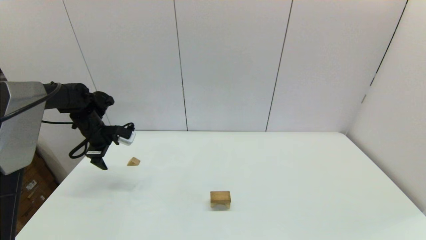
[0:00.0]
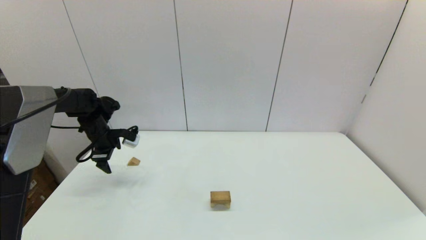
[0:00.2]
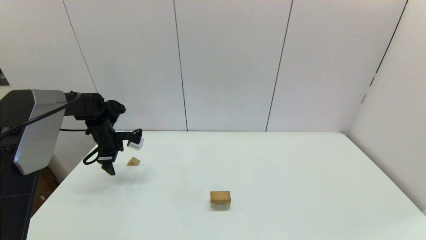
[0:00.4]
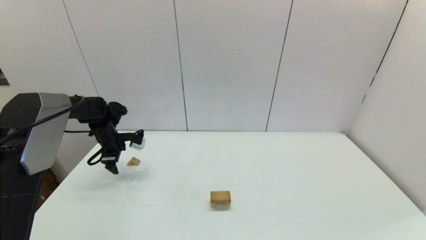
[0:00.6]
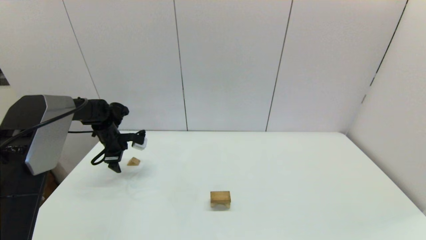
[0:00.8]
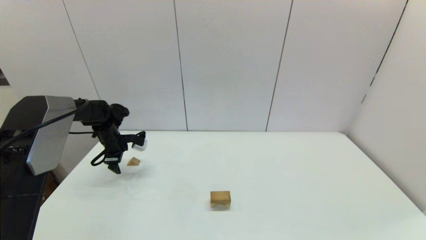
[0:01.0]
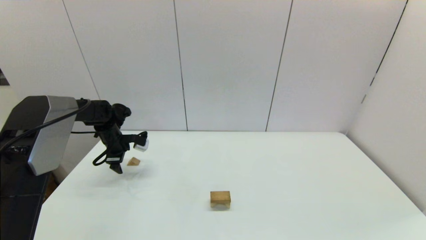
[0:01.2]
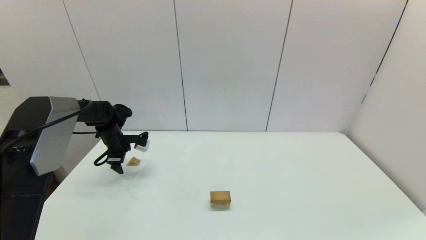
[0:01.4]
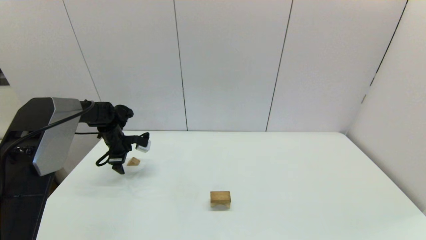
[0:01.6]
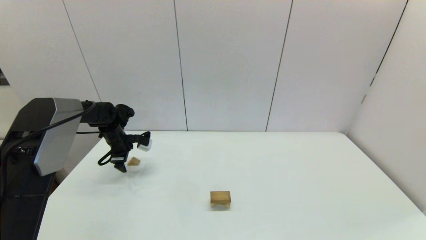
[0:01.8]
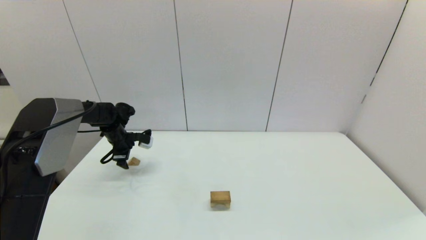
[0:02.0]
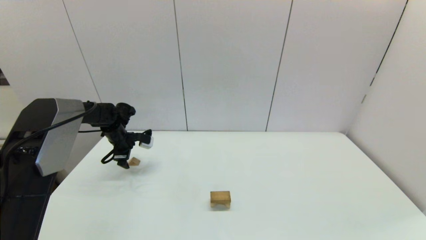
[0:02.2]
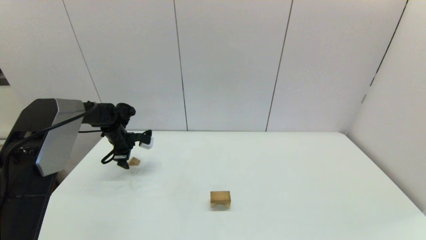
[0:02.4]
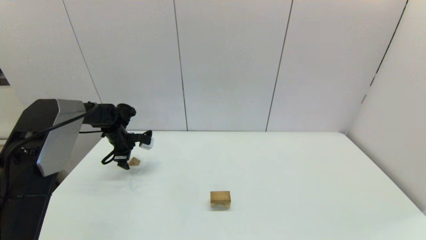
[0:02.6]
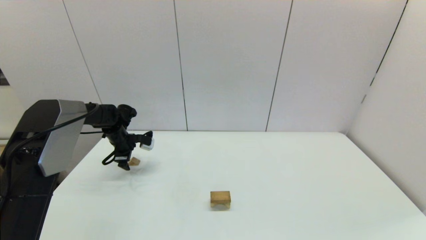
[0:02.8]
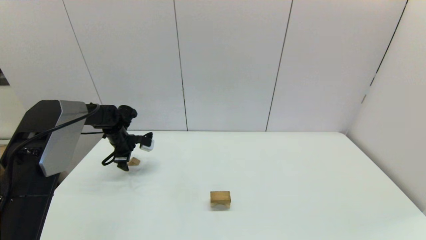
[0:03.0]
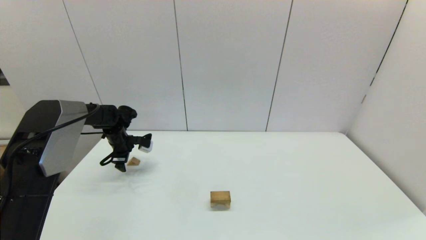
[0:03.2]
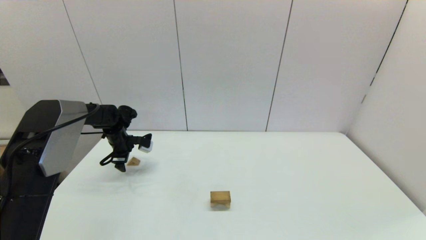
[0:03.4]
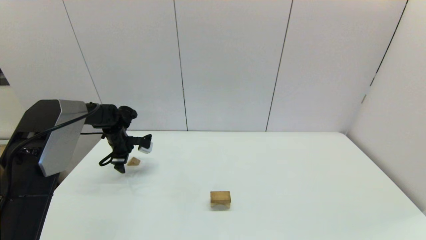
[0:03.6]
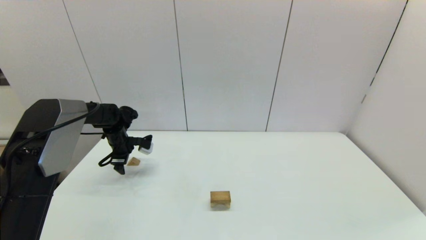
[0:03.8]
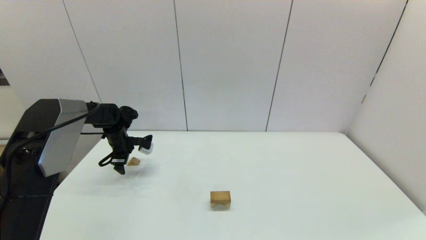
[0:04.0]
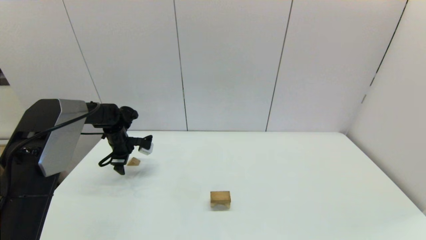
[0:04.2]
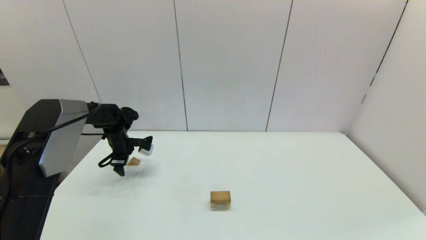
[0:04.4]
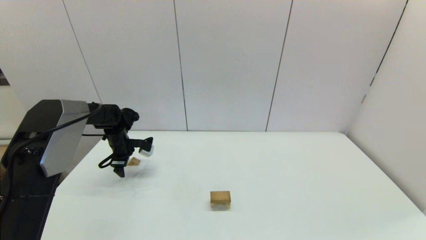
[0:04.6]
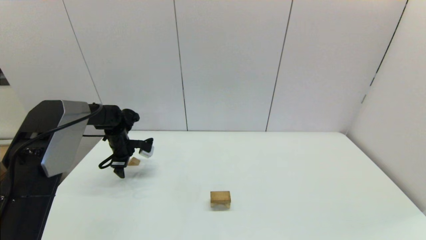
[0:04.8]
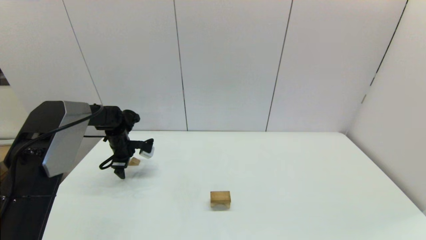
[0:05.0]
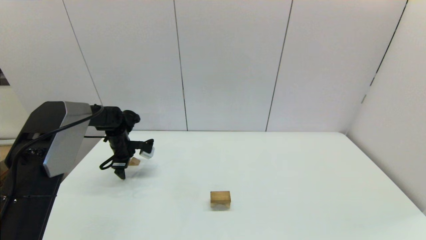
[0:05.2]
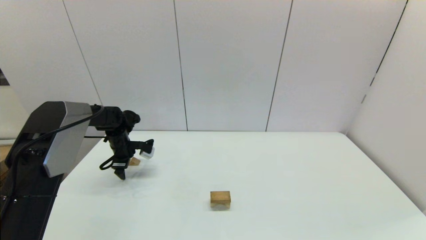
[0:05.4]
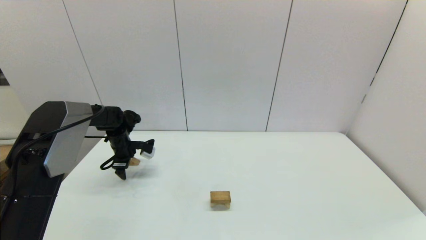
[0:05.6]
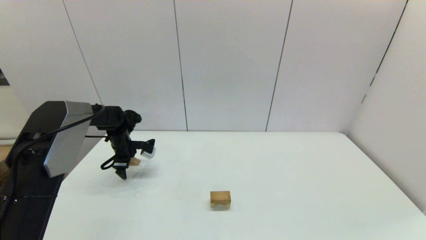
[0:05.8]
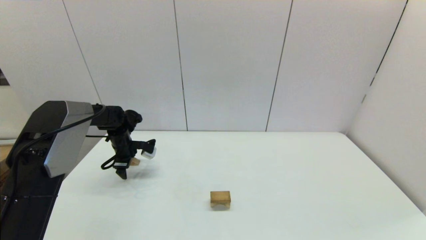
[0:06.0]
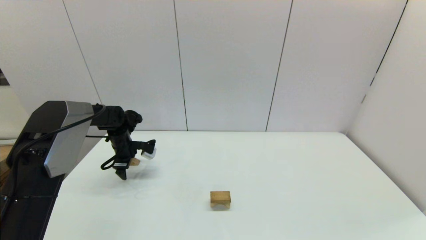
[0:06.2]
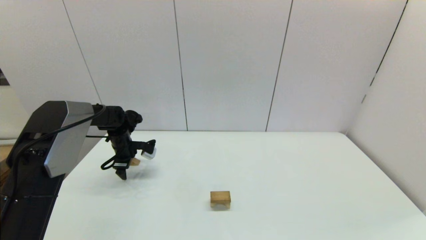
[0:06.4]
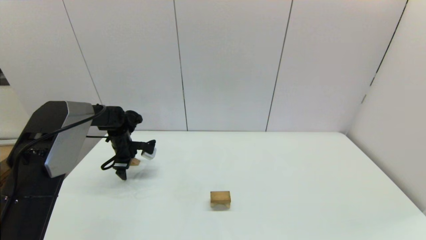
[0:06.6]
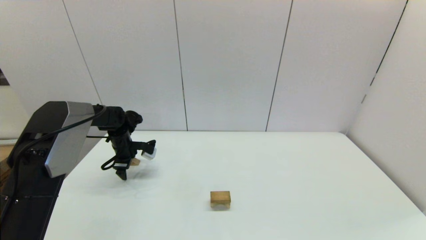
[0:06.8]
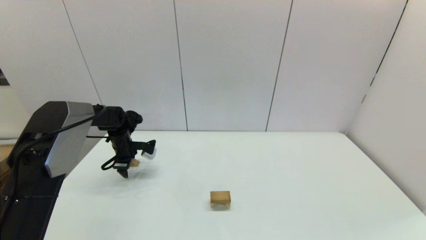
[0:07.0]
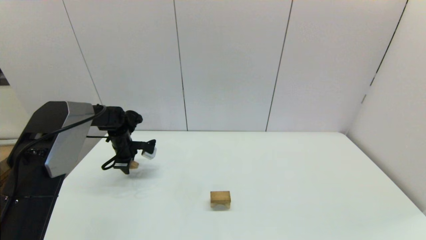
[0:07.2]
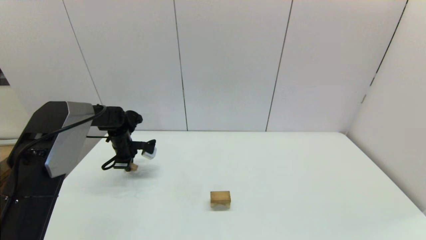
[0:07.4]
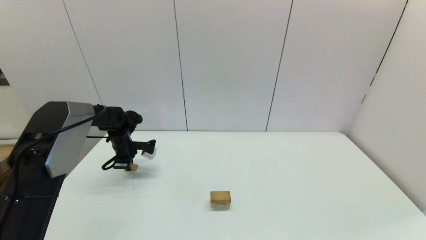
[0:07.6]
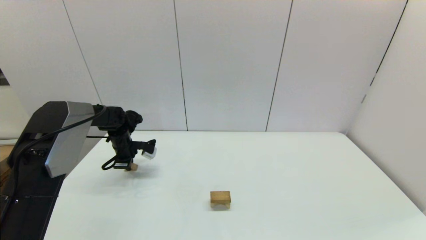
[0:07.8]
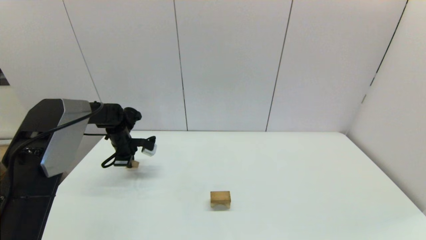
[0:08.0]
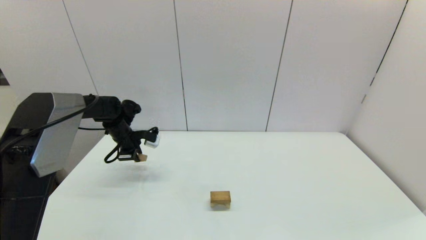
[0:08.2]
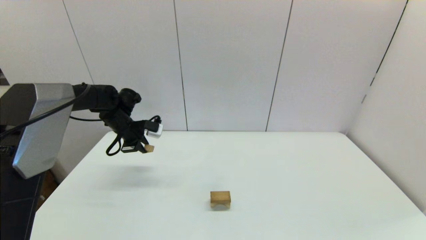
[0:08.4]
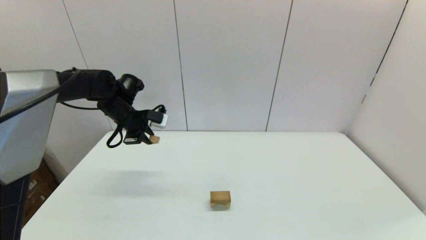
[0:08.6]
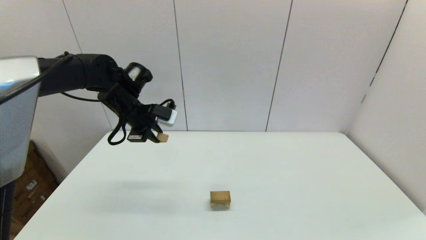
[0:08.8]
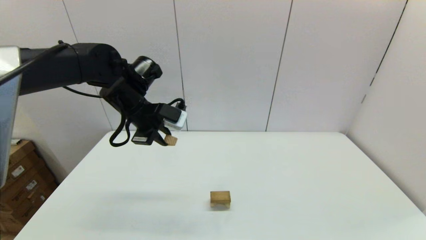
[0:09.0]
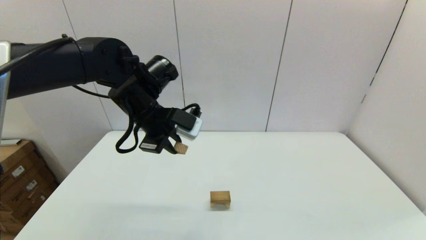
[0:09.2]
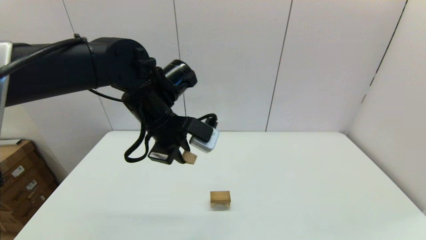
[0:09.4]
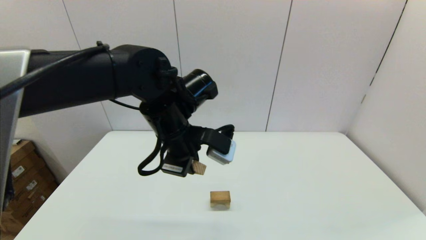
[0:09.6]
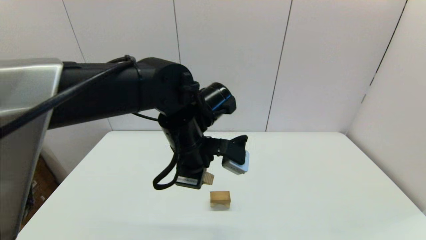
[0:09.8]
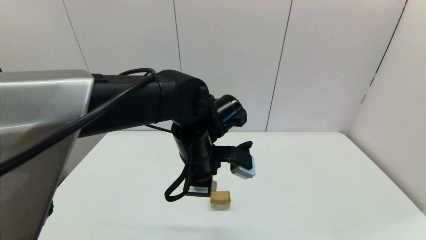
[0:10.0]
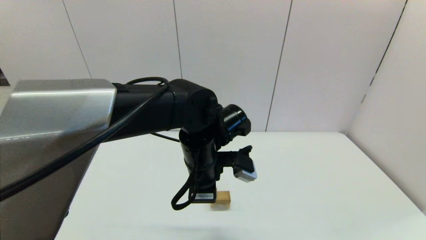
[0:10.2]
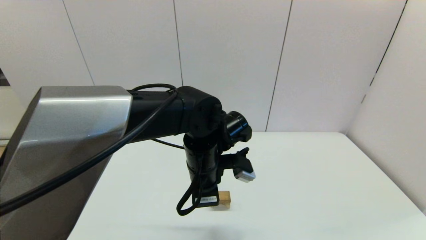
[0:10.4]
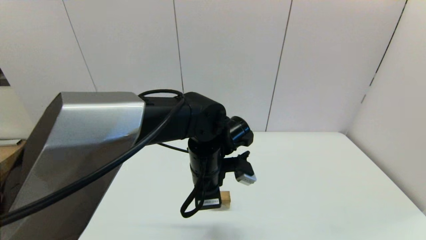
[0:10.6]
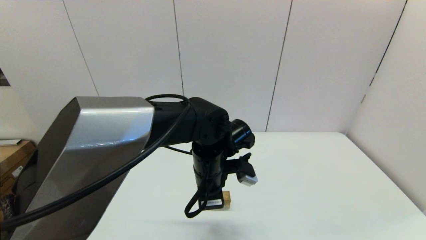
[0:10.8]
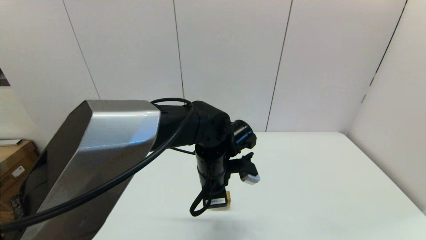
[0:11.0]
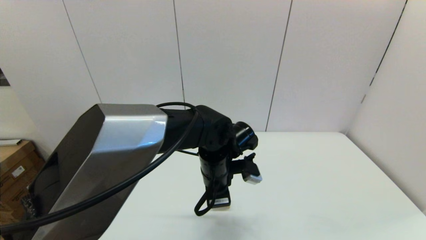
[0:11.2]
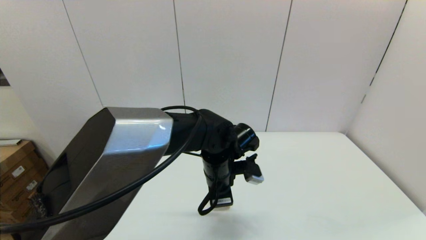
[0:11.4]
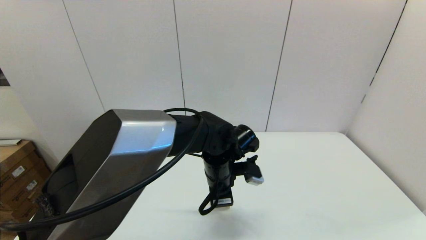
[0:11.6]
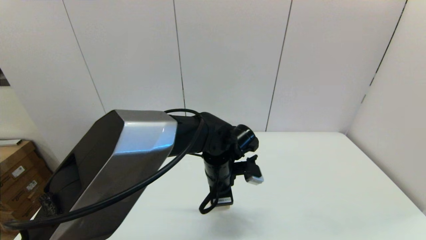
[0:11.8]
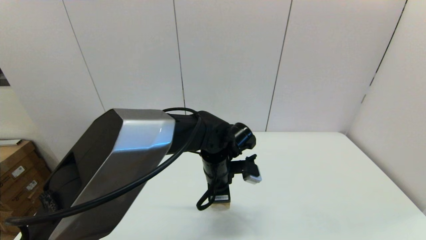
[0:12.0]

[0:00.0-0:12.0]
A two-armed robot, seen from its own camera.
Task of the whole recording: place the arched building blocks in the center of the table, set up the rectangular building blocks, and then set up the triangular building blocks.
Step, 0:00.0 to 0:07.4: Grasp the triangle-shaped block with the left gripper.
0:00.0 to 0:01.6: The left gripper is displaced downward by about 5 cm.
0:01.6 to 0:04.4: The grippers stay close to where they were, moving slightly.
0:04.4 to 0:06.0: Neither gripper changes place.
0:06.0 to 0:07.6: The left gripper closes its fingers.
0:07.6 to 0:09.0: The left gripper heads upward, to the right and backward, covering some 25 cm.
0:09.0 to 0:10.4: The left gripper heads to the right, backward and downward, covering some 20 cm.
0:10.4 to 0:12.0: The left gripper travels downward by approximately 5 cm.

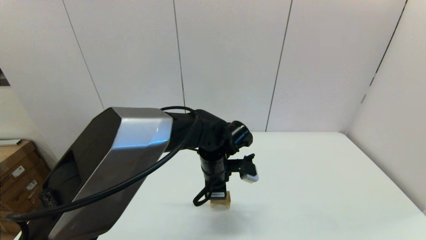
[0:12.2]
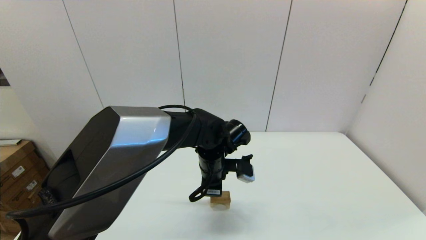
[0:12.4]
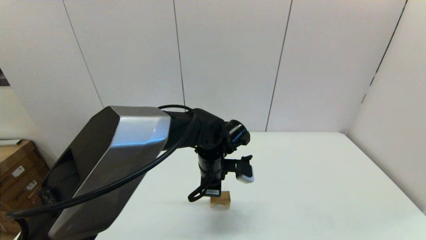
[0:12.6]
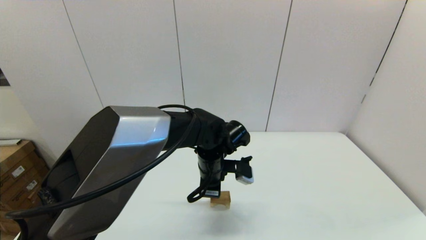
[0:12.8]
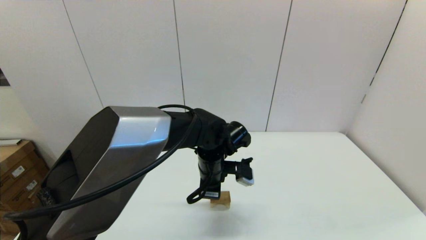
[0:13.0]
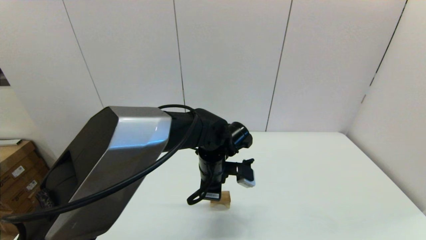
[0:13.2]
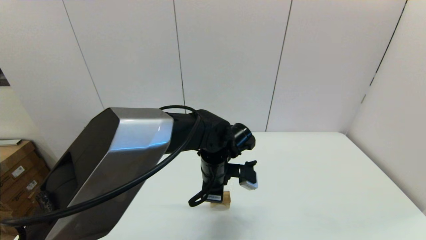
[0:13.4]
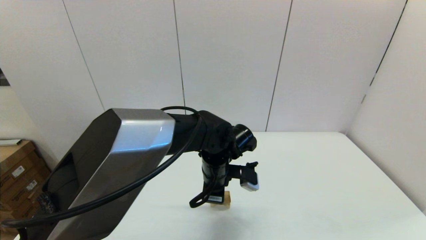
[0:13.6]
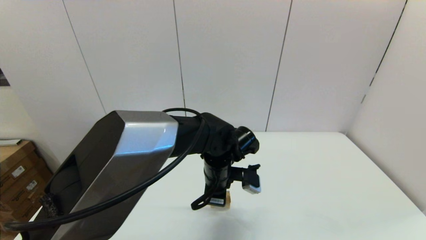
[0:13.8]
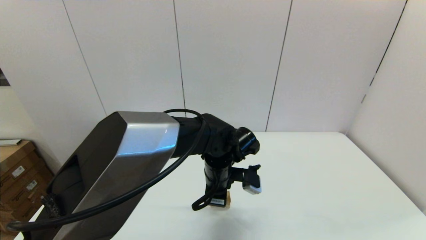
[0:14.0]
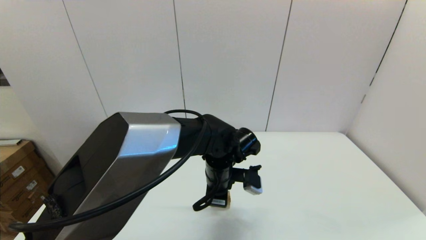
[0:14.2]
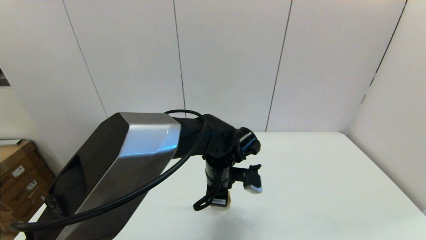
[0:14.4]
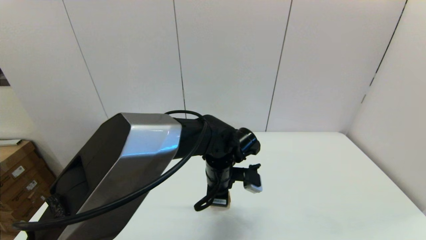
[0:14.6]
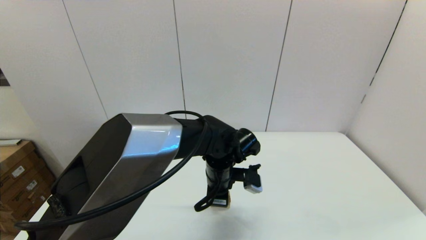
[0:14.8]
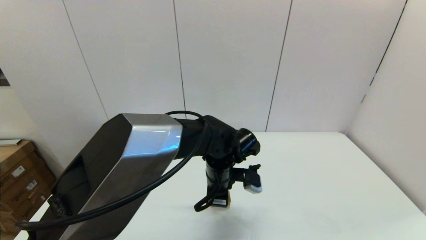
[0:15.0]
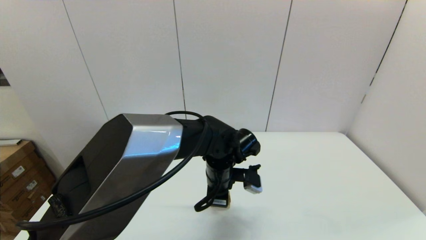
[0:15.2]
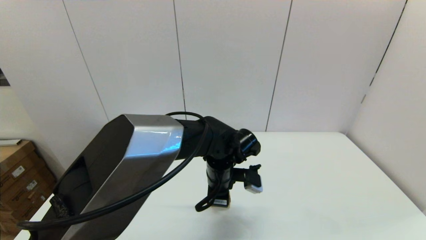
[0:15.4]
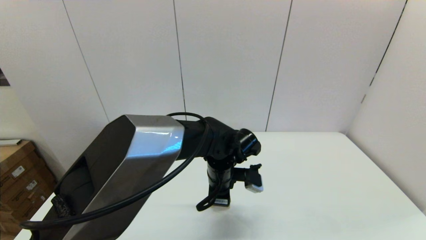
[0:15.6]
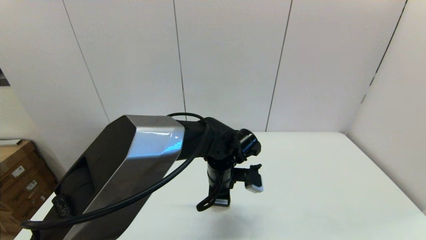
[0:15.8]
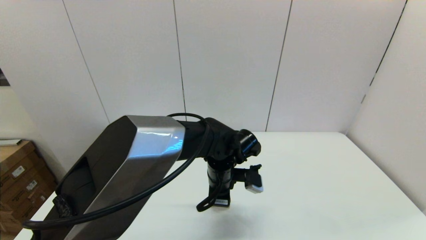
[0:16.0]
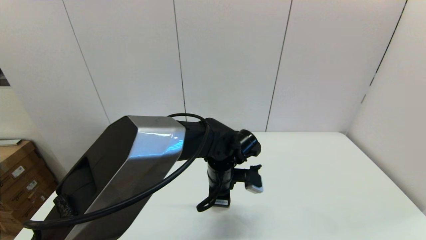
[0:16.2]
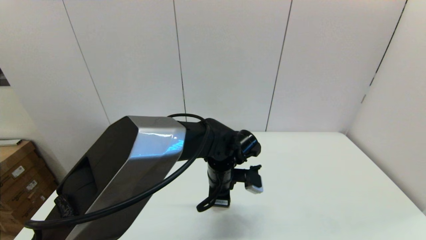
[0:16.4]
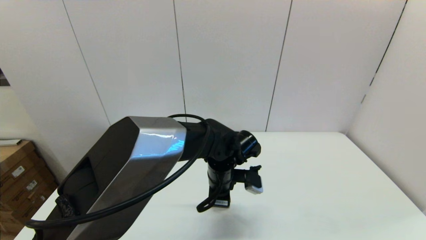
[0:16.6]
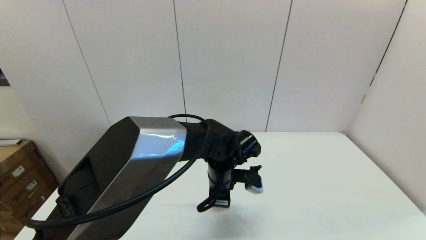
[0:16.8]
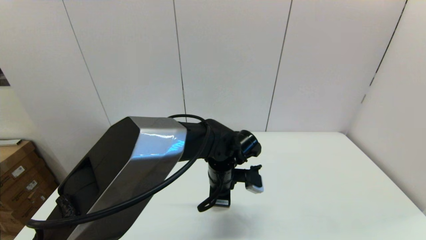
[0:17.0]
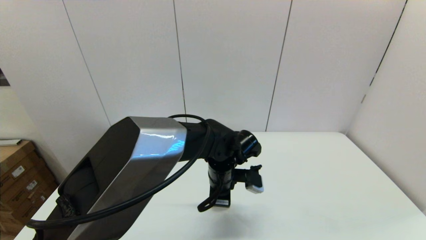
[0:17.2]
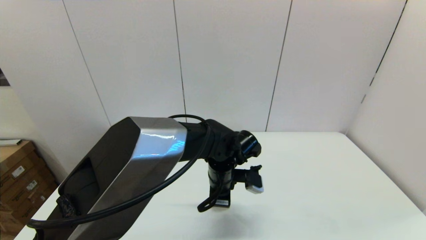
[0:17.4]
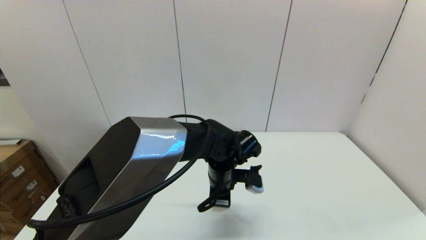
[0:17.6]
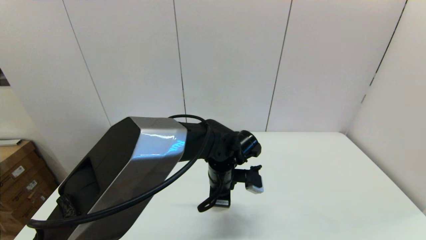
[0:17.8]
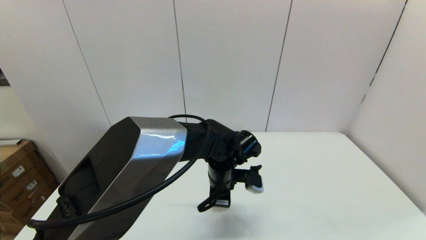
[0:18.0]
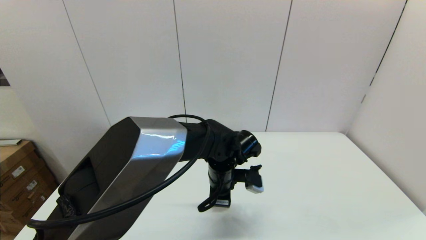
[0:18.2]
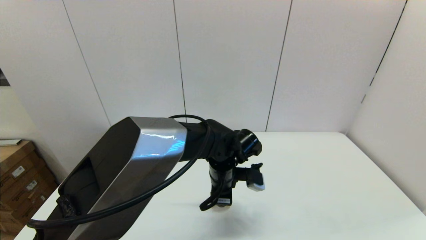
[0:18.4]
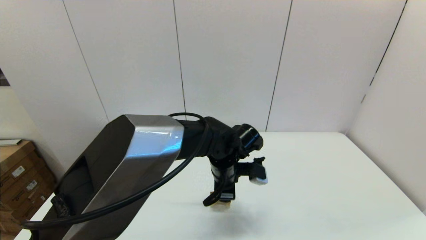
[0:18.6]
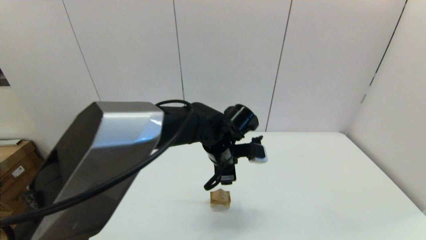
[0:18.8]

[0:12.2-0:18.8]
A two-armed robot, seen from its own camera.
Task of the whole recording: place the arched building blocks in the center of the table, set up the rectangular building blocks, and then set up the triangular building blocks.
0:12.2 to 0:13.8: The grippers make only small movements.
0:13.8 to 0:15.4: Both grippers stay about where they are.
0:15.4 to 0:17.2: Neither gripper changes place.
0:17.2 to 0:18.8: The left gripper goes roughly 5 cm upward, and opens up.
